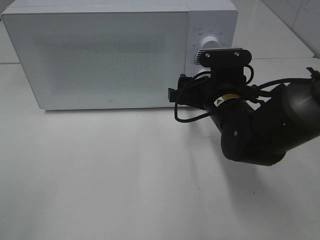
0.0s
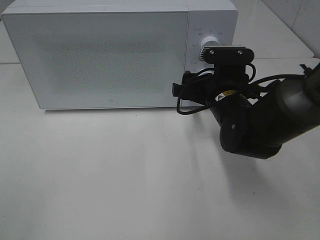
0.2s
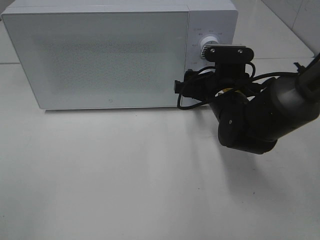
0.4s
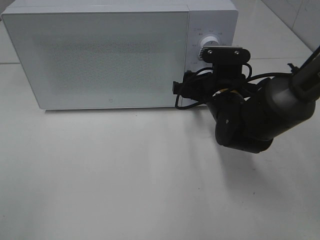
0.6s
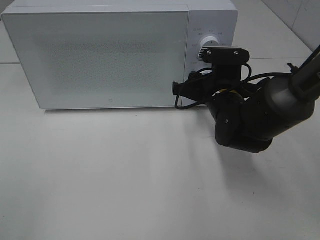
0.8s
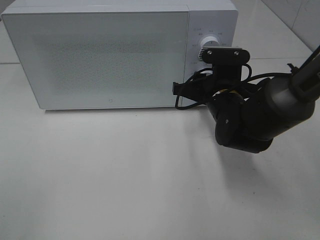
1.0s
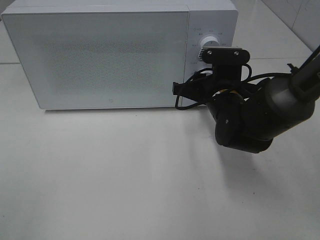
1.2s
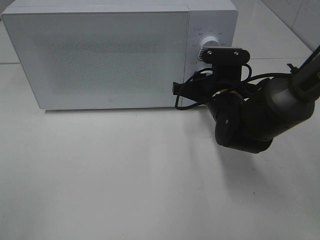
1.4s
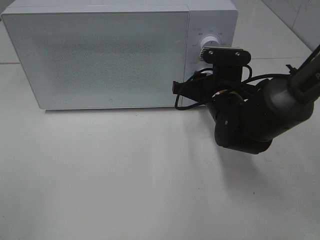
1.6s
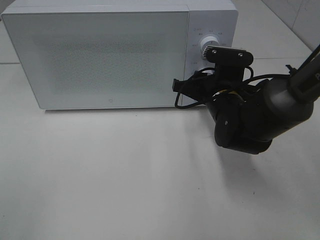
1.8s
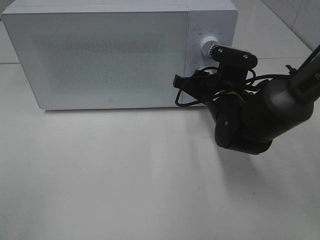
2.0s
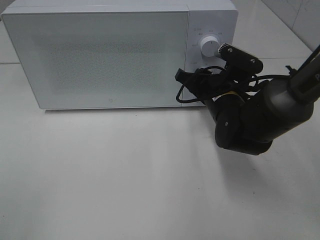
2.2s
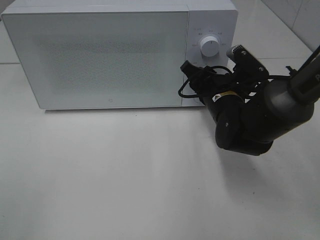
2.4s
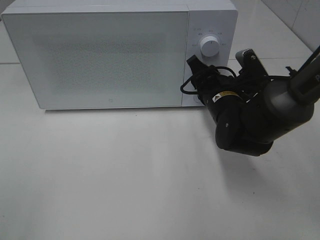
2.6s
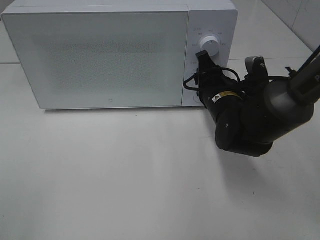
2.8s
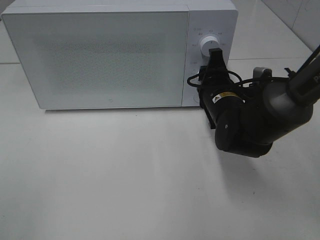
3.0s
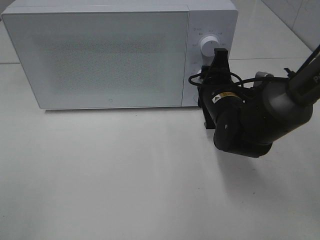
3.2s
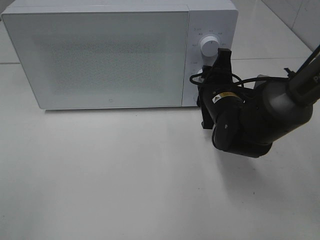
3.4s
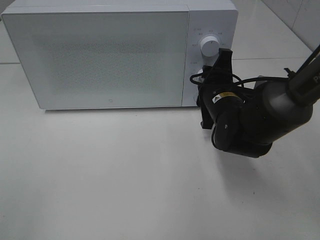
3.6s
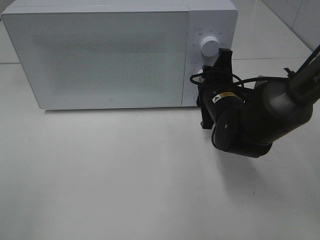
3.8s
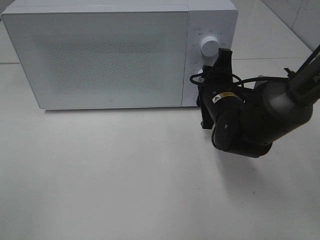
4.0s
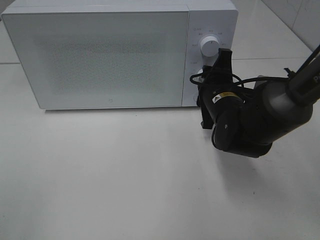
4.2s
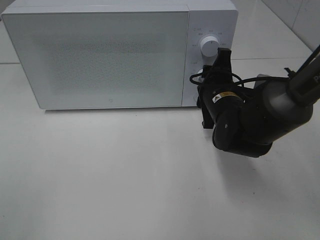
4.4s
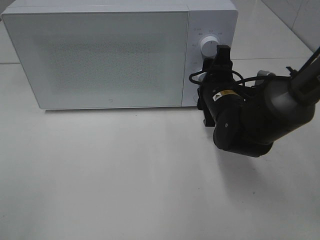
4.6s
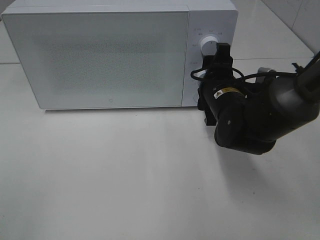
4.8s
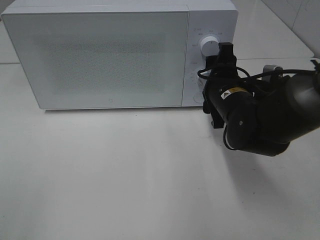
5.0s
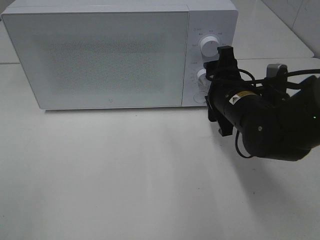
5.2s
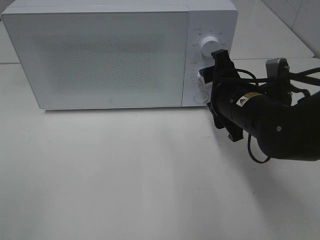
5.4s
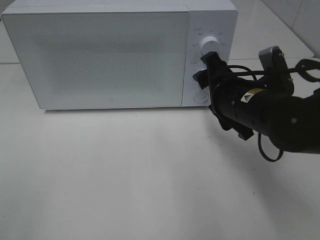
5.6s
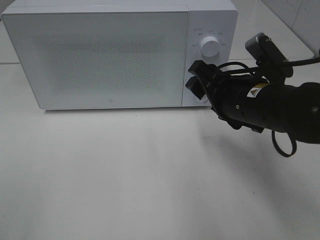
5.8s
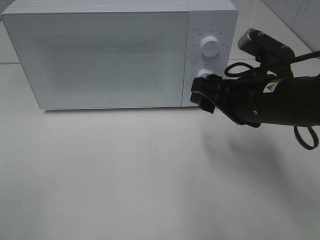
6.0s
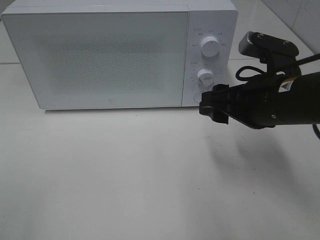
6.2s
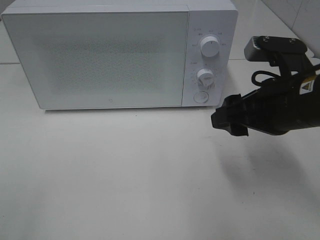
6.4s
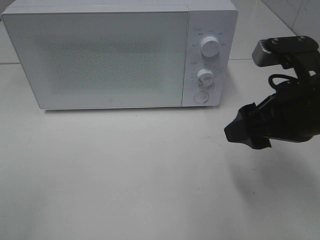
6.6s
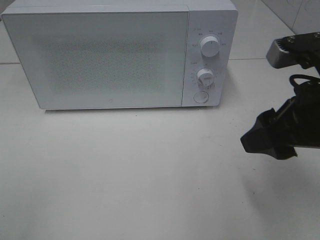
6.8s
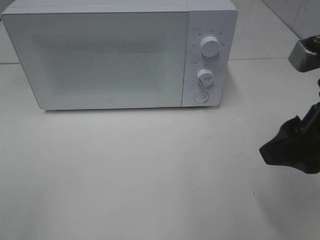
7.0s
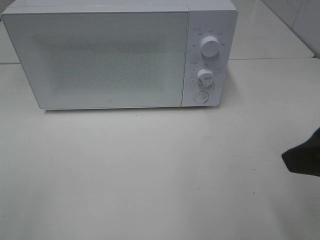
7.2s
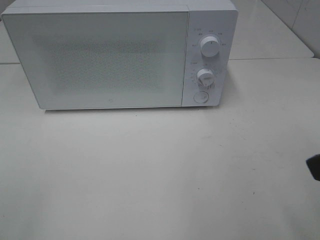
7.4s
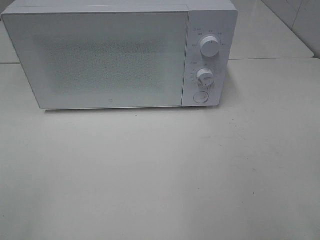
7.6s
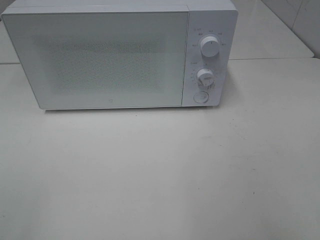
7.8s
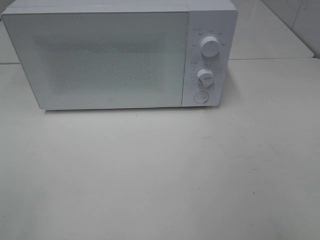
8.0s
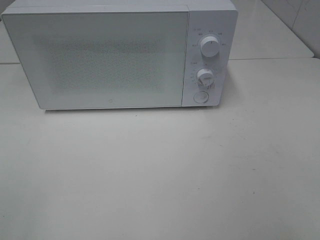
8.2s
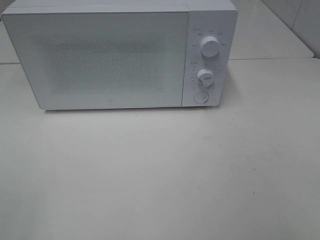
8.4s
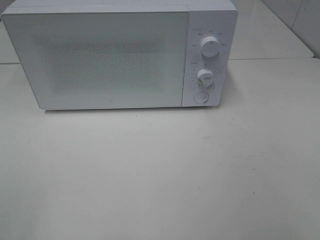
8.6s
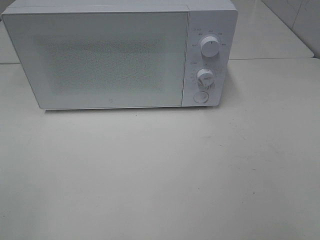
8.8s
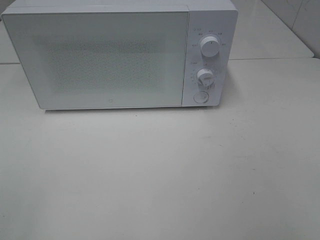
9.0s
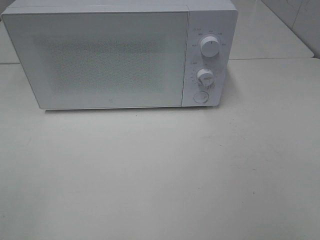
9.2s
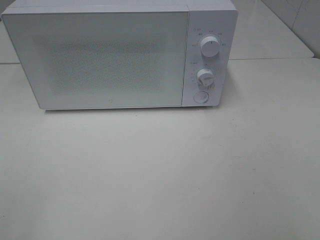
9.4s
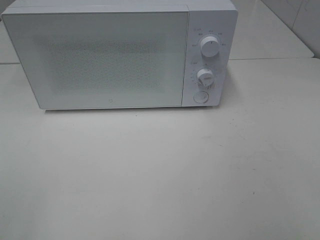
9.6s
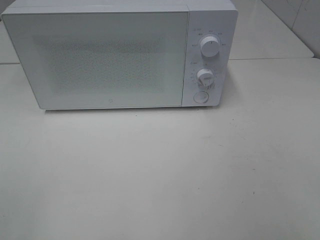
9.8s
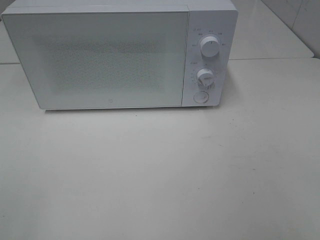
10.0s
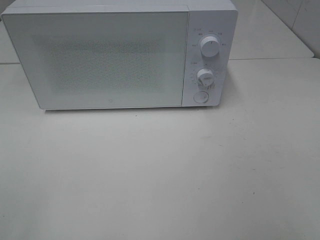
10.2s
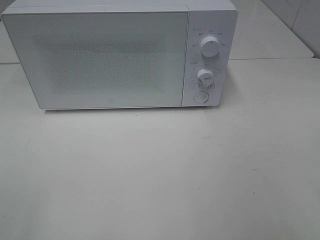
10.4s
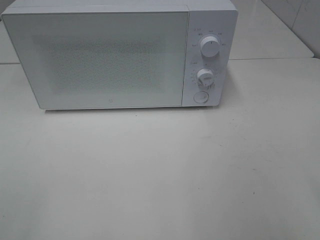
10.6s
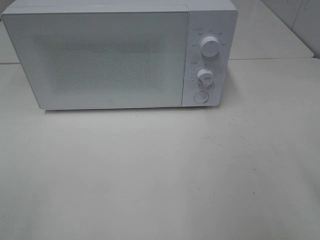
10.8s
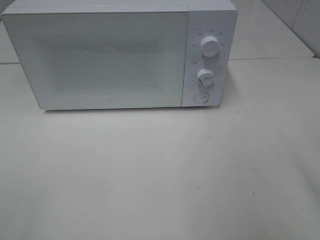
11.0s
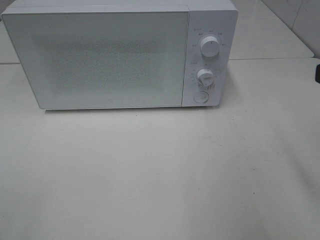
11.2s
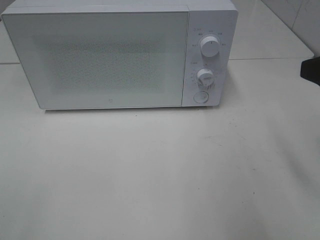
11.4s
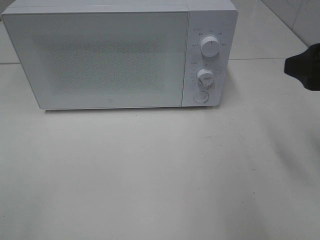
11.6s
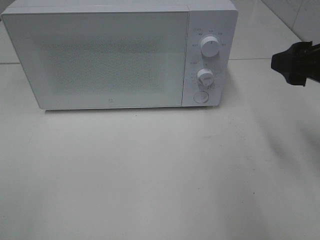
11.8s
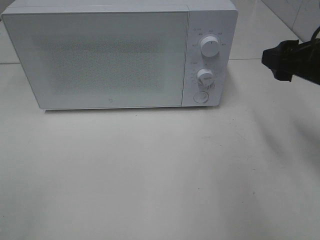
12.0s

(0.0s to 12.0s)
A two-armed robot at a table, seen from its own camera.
Task of the whole recording: Heat Sandwich.
Step, 0.0s - 5.4s: Right hand: twist timer button.
0.0s - 1.6s: The right gripper closes its fingers.
3.0s - 4.4s: The grippers stay close to where they were, moving slightly.
4.4s - 6.0s: The right gripper travels backward and upward by approximately 10 cm.
6.0s - 7.6s: The right gripper goes roughly 25 cm backward, upward and to the right.
10.4s - 12.0s: The right gripper travels forward by about 20 cm.

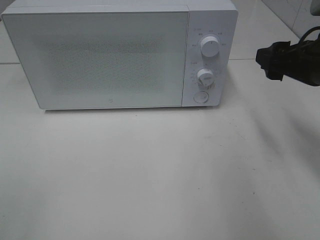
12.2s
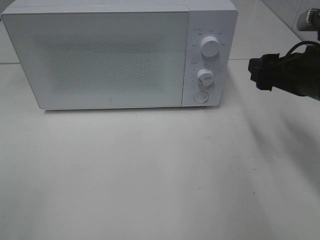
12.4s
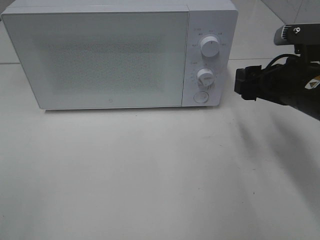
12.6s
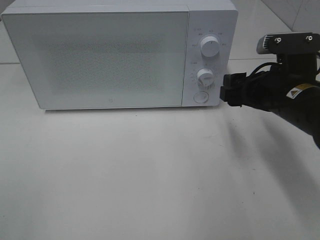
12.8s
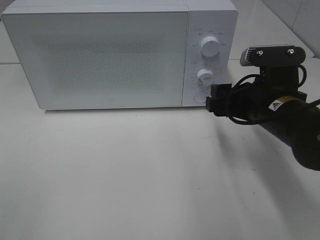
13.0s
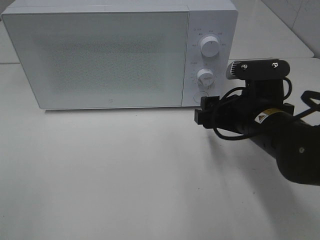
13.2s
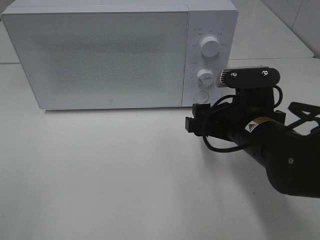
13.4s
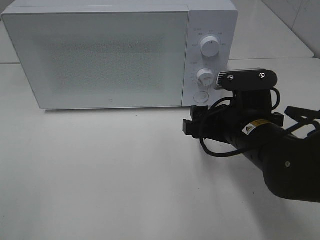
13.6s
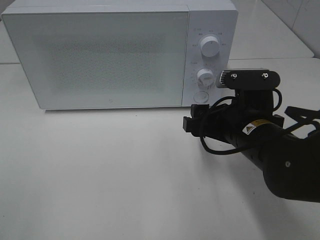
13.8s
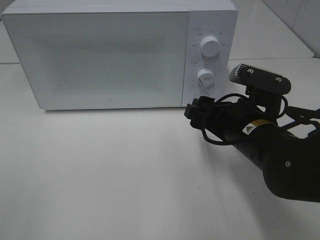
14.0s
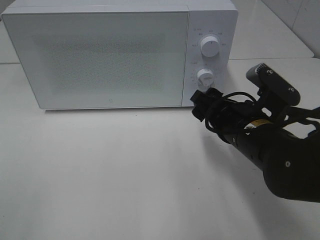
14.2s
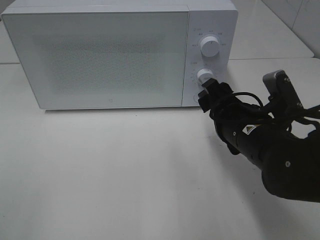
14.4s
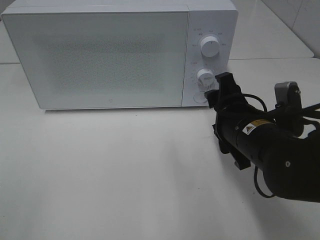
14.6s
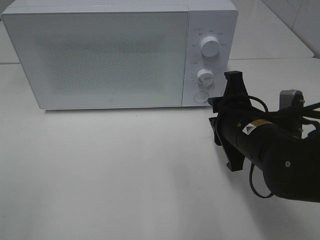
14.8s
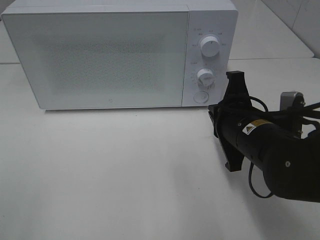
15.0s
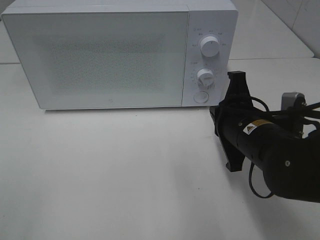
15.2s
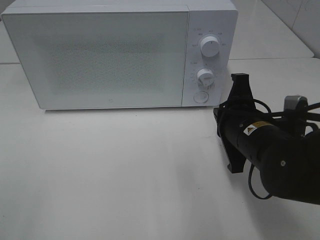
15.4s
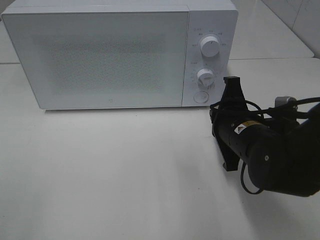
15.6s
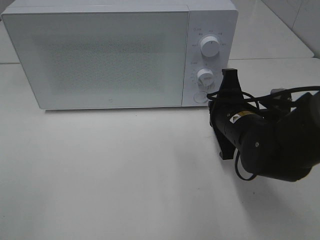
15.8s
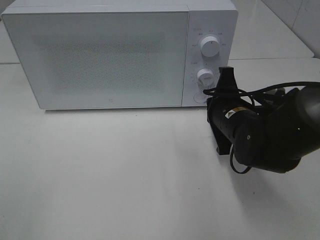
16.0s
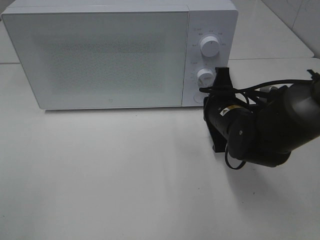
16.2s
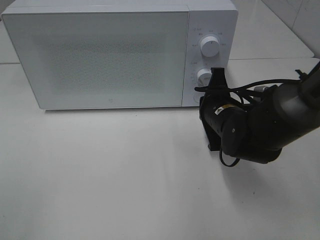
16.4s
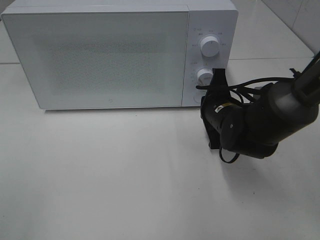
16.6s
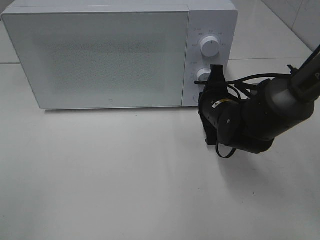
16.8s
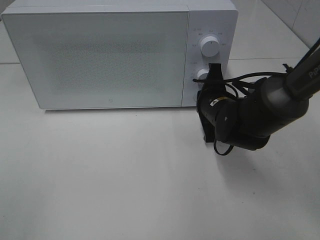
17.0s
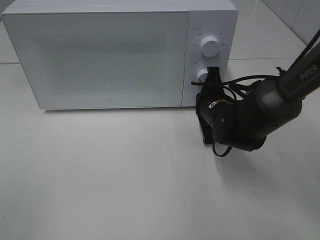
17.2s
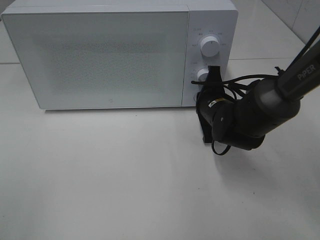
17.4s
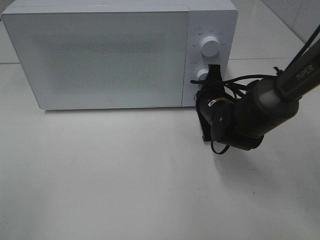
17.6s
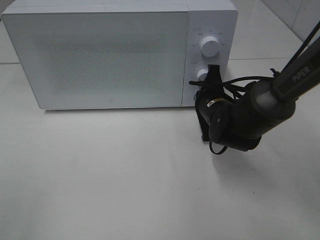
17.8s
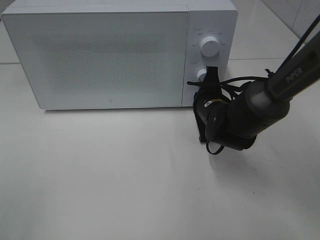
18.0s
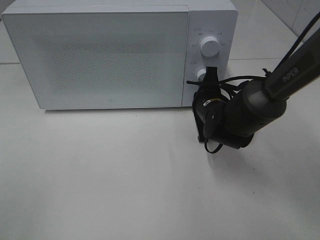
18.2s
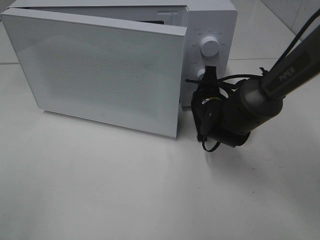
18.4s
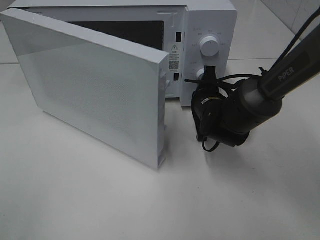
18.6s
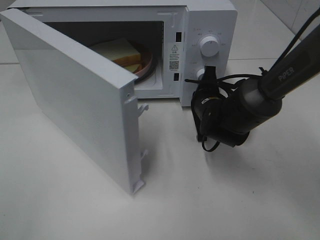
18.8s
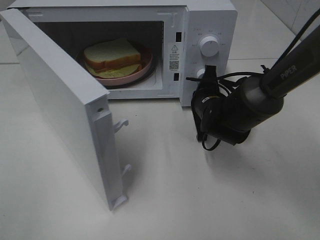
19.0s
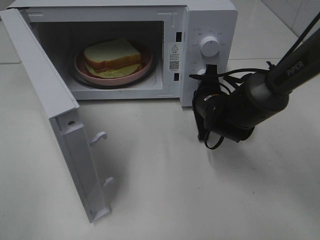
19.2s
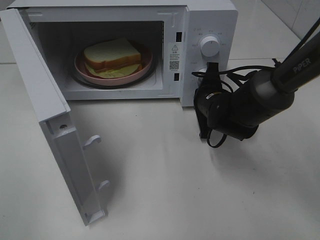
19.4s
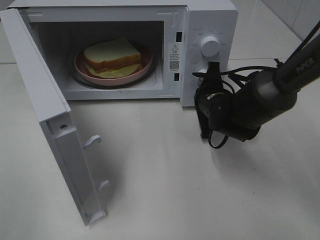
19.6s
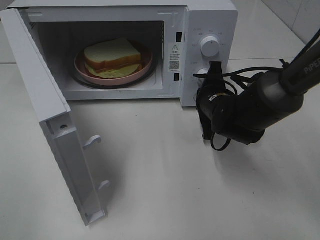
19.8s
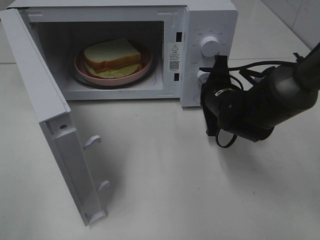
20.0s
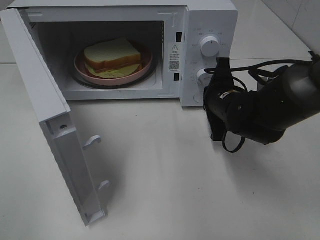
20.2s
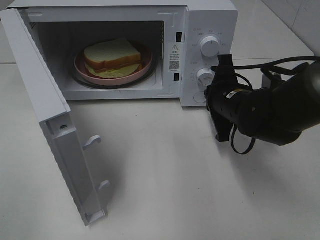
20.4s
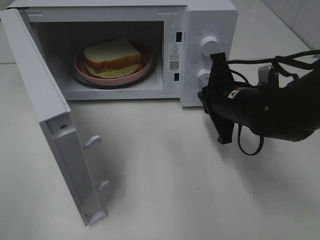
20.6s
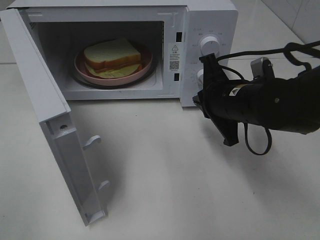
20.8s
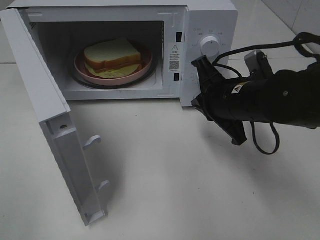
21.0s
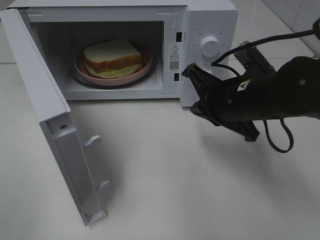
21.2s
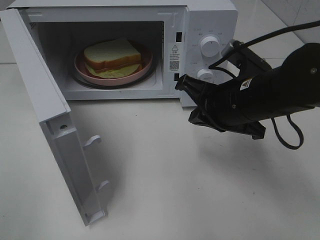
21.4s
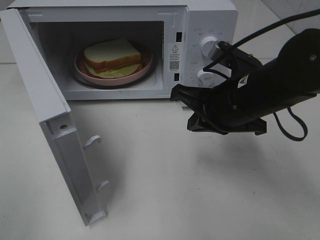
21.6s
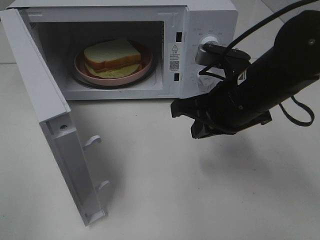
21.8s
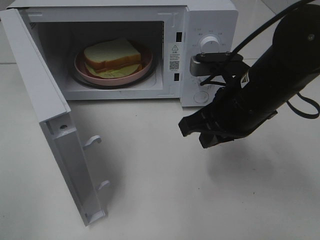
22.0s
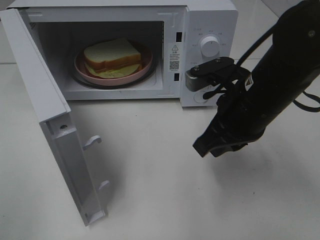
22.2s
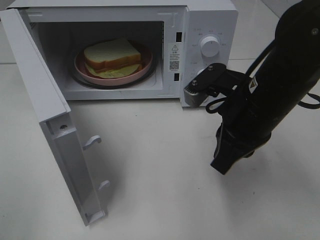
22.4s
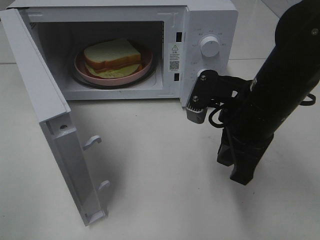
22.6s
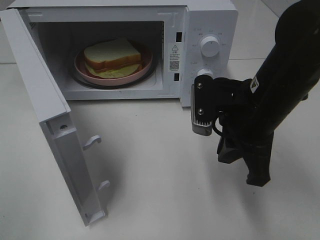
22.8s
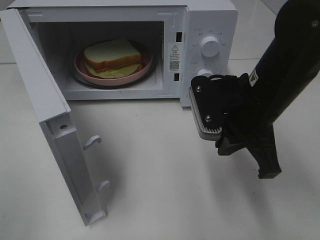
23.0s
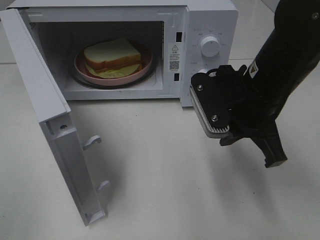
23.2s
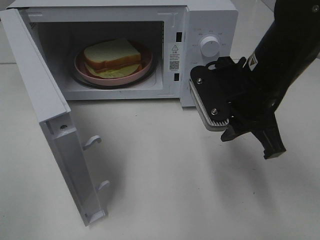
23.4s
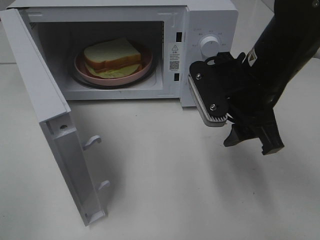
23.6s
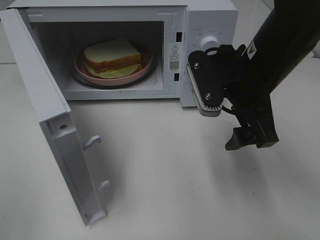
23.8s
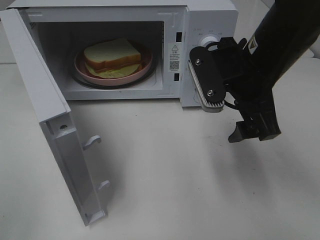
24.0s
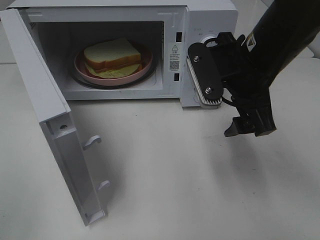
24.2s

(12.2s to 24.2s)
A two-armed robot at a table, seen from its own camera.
Task of the whole recording: Heat Sandwich.
Step, 12.2s - 20.4s: Right hand: press the switch.
12.2s - 13.8s: The right gripper shifts approximately 15 cm to the left and downward.
13.8s - 15.2s: The right gripper closes up.
15.2s - 16.6s: The right gripper travels forward by approximately 10 cm.
16.6s - 18.2s: The grippers stay close to where they were, moving slightly.
19.8s - 21.2s: The right gripper shifts some 10 cm upward and backward.
22.6s - 24.2s: The right gripper shifts by about 5 cm, and opens.
